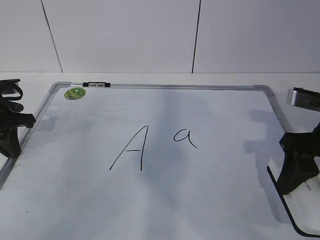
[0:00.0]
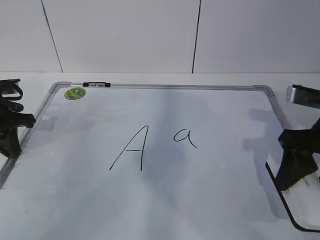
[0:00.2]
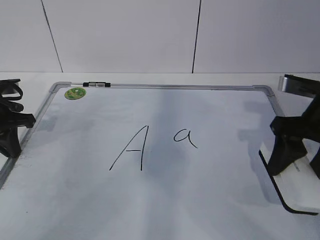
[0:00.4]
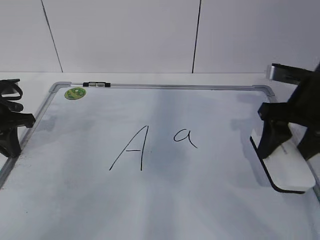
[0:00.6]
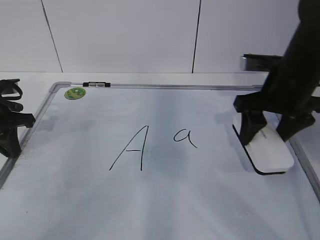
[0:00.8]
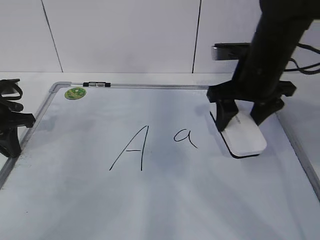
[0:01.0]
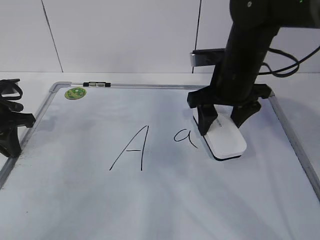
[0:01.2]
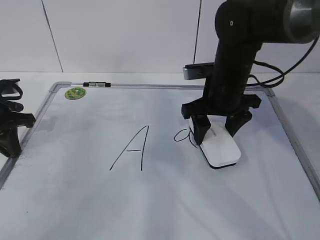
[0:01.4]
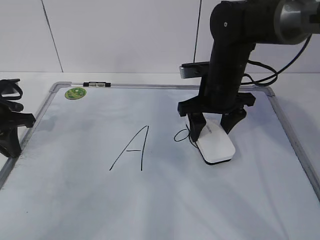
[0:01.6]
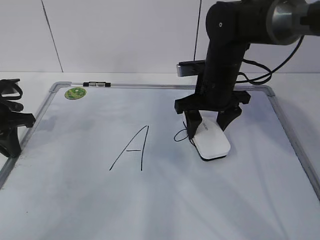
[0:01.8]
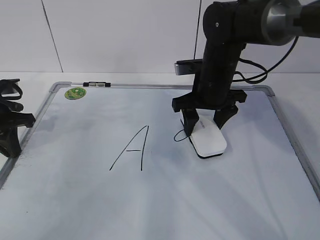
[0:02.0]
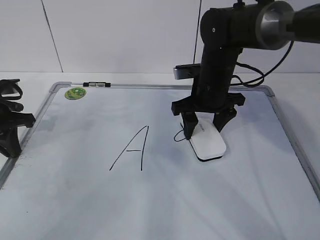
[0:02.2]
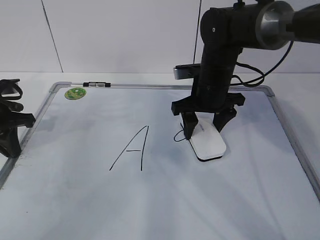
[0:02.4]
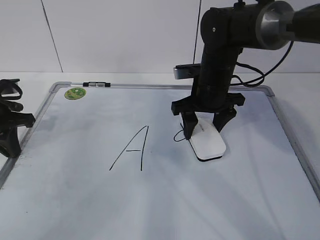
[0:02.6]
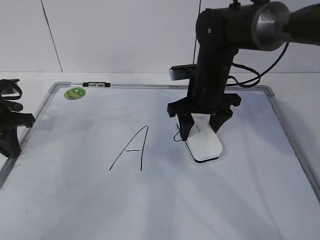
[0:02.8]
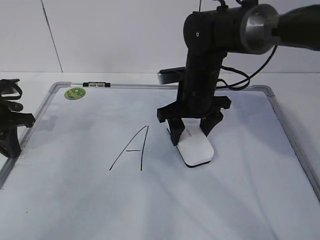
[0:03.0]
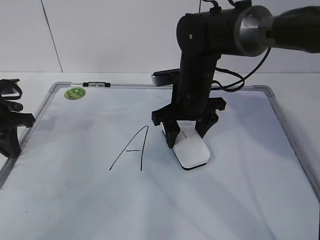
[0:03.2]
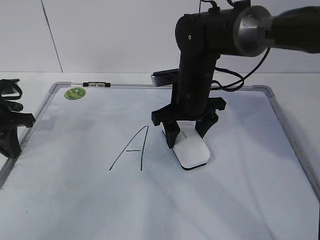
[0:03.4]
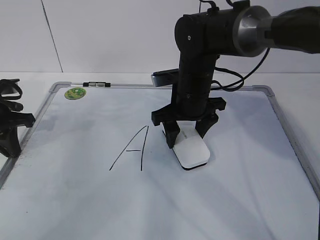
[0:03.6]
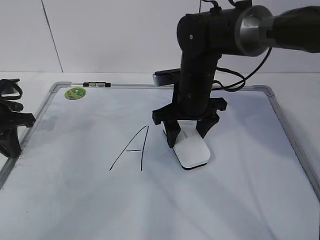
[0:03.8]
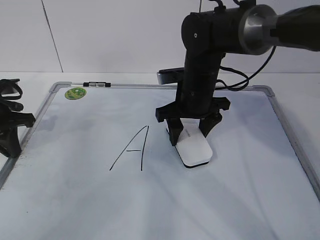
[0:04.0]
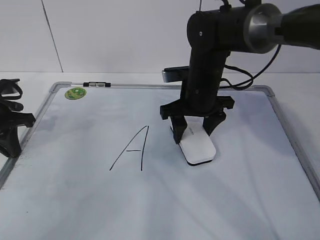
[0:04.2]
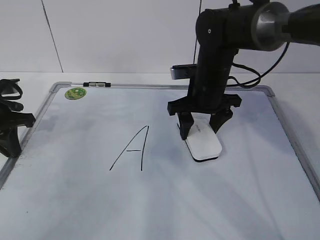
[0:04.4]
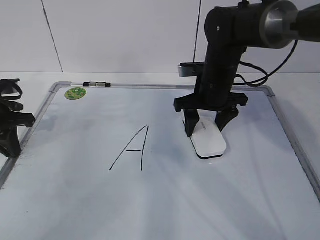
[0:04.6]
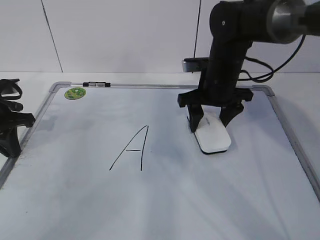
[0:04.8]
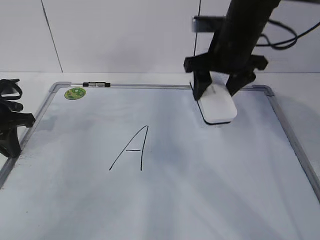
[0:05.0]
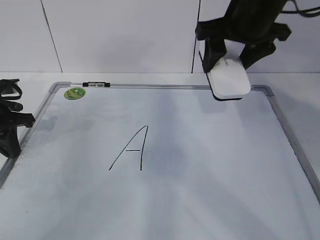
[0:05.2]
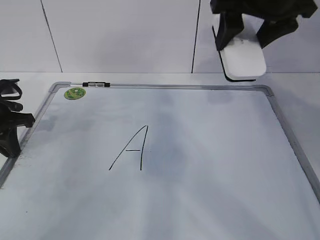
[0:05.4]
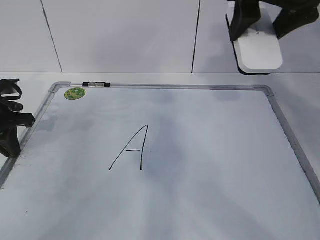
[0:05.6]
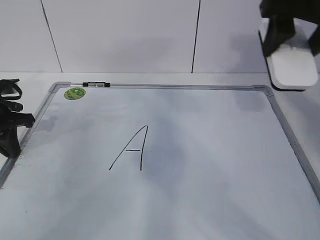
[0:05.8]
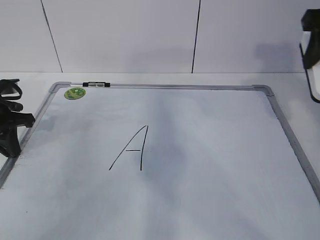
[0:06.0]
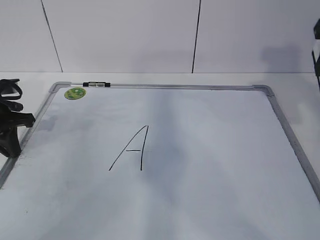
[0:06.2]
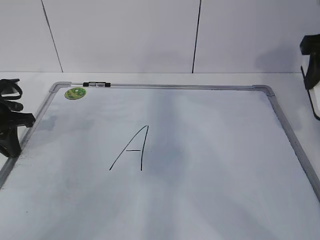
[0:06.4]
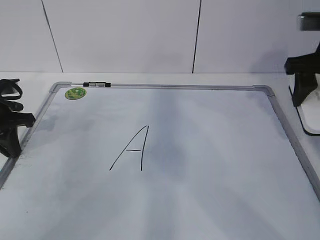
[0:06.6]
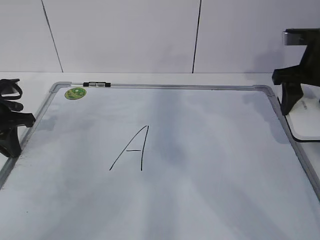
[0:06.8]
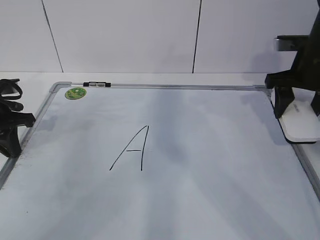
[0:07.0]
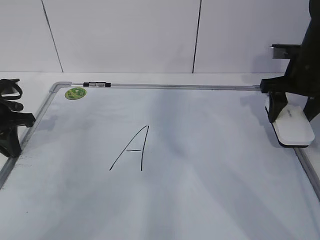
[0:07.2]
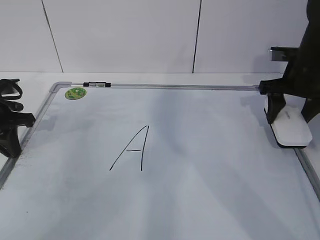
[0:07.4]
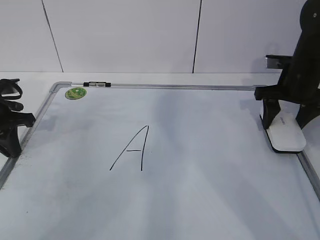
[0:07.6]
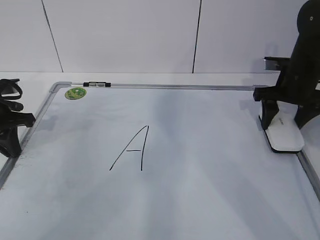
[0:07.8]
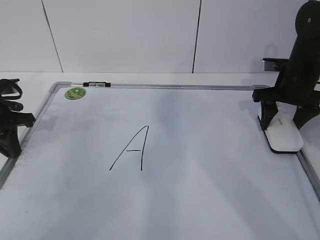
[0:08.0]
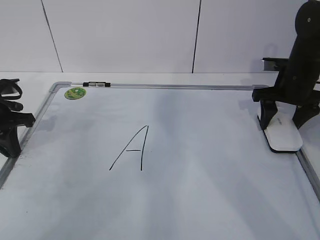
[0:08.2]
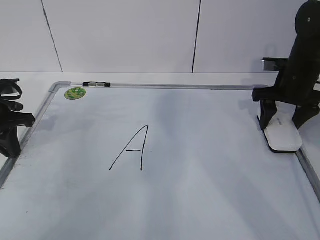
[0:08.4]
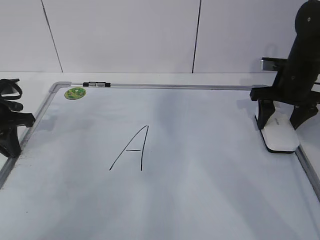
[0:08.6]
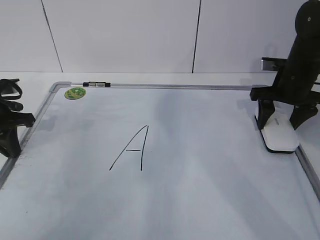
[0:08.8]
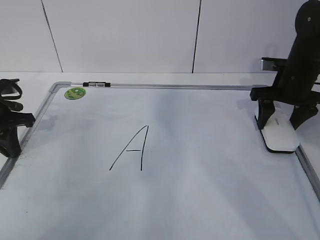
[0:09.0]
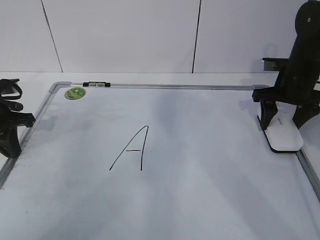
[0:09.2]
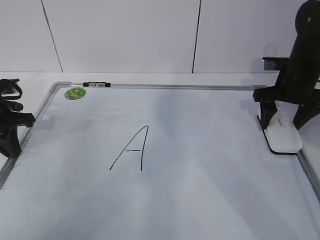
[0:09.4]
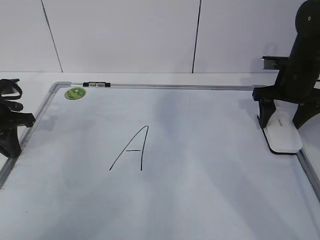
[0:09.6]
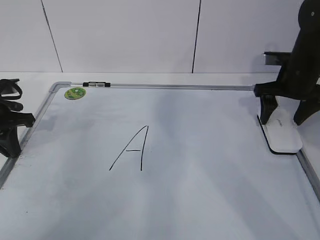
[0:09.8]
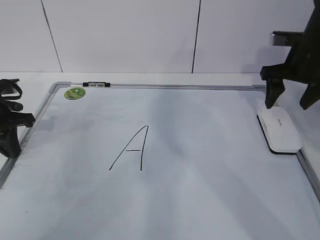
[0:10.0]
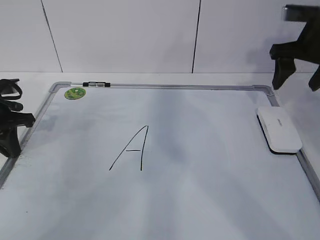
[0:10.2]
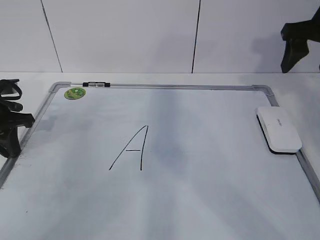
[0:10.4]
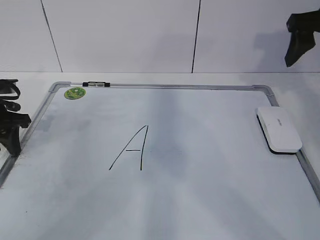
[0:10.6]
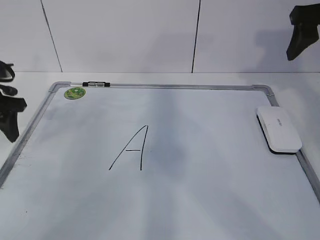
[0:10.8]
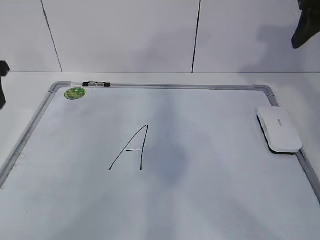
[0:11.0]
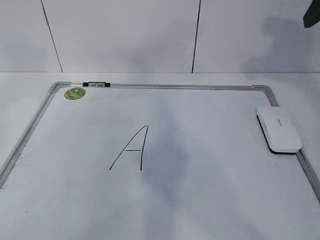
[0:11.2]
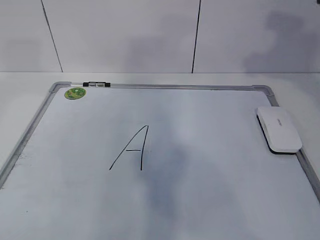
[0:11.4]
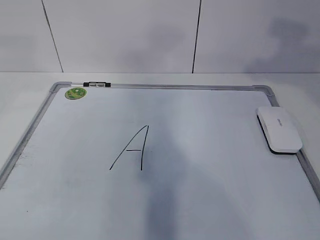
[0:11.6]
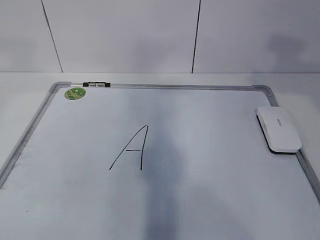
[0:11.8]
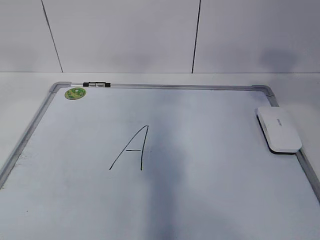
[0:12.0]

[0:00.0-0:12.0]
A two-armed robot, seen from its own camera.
Task of the whole recording: pick up the eraser on the blackboard and erase the letter "a".
Step, 0:01.4 to 0:05.2: Put down the eraser with your right hand.
0:00.0 to 0:01.6: The right gripper goes roughly 20 cm forward and to the left.
0:01.6 to 0:04.4: The grippers stay close to where they were, moving slightly.
0:04.4 to 0:06.0: The right gripper goes approximately 25 cm upward, to the right and backward.
0:06.0 to 0:07.6: The right gripper is displaced downward and forward by approximately 20 cm.
0:07.6 to 0:09.0: Neither gripper changes place.
0:09.0 to 0:10.4: The right gripper is displaced upward by roughly 15 cm, and opens its fingers.
0:10.4 to 0:12.0: The left gripper goes roughly 40 cm upward and backward, and opens; the right gripper shifts approximately 25 cm backward and upward, and closes up.

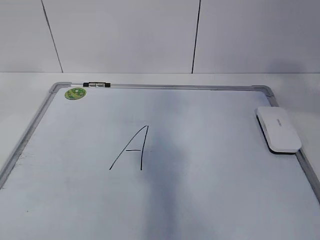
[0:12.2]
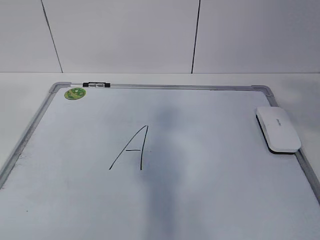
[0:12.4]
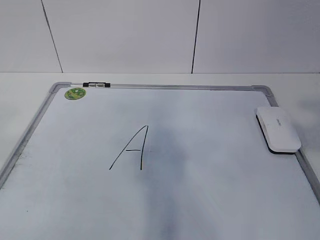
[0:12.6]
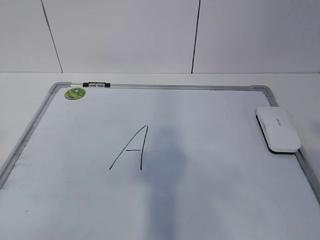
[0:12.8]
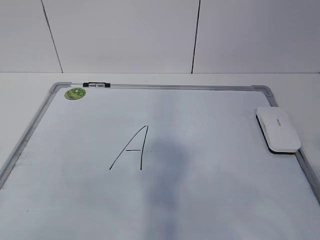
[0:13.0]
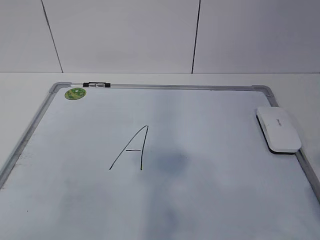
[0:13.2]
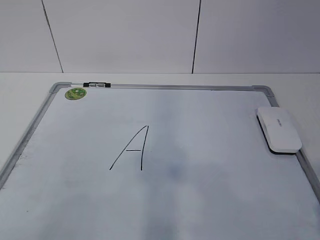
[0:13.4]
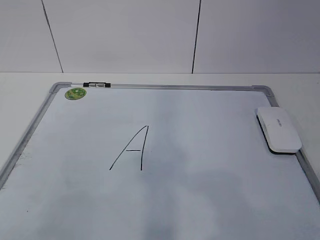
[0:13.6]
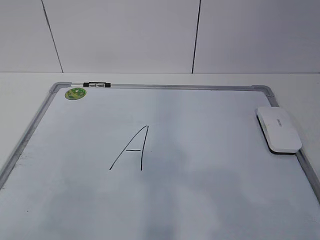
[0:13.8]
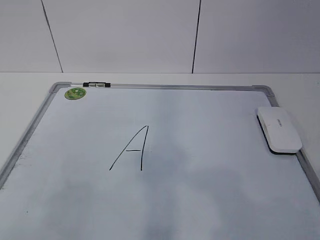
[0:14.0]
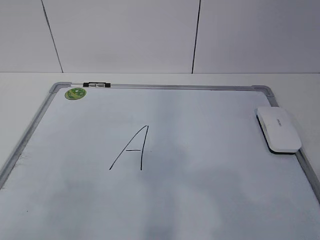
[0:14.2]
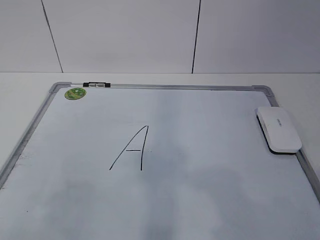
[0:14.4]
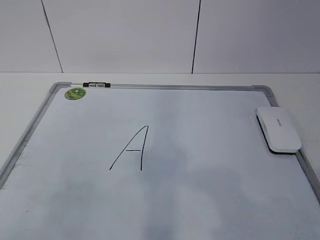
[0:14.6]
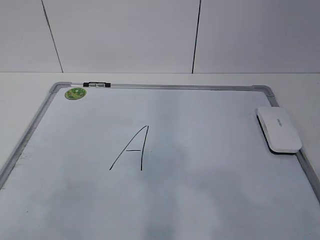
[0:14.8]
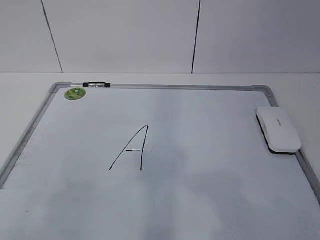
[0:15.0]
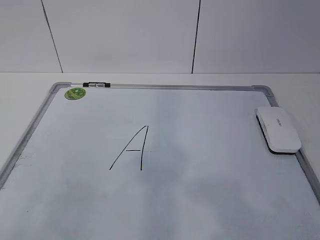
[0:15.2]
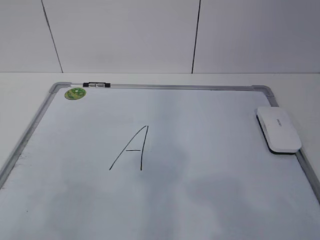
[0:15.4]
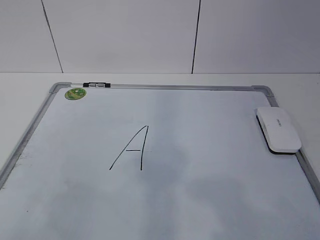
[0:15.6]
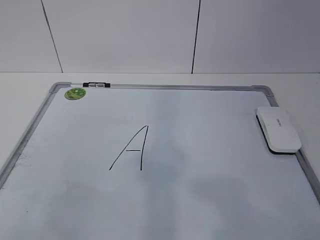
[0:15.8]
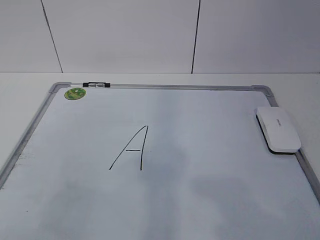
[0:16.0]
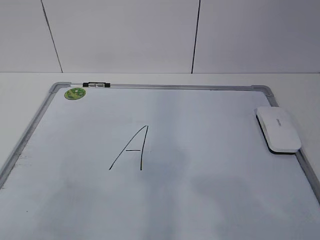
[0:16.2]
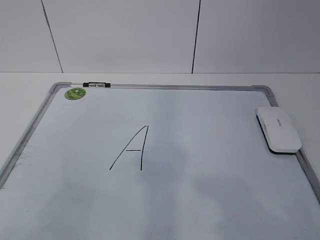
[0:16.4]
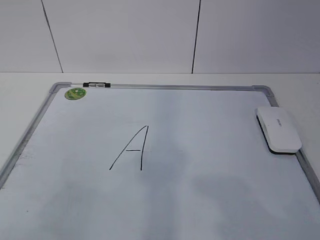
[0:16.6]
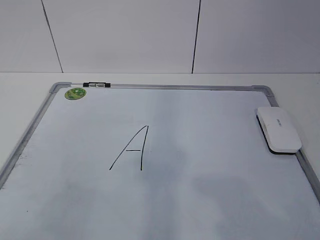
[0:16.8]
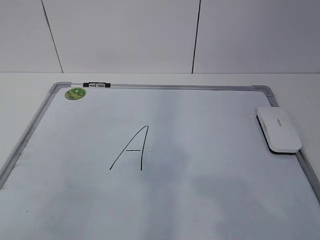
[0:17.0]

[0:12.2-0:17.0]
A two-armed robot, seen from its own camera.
Task of the whole recording: pick up the eraser on the blackboard and erase the letter "a".
0:12.2 to 0:13.8: Both grippers travel together downward and backward, approximately 20 cm.

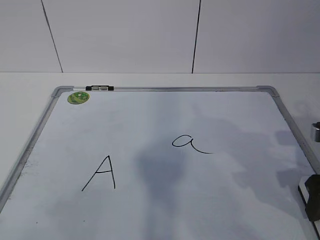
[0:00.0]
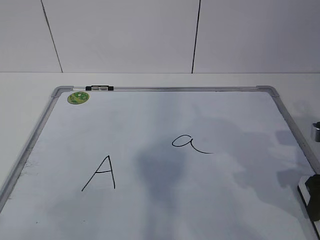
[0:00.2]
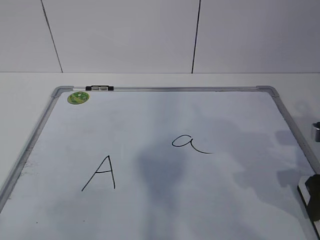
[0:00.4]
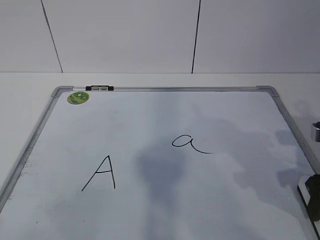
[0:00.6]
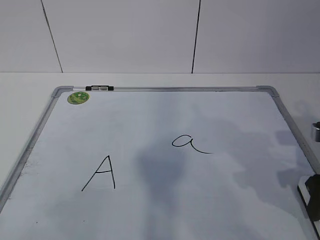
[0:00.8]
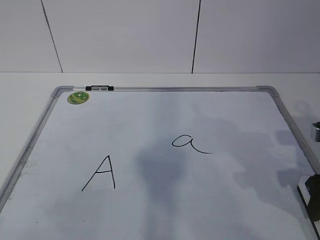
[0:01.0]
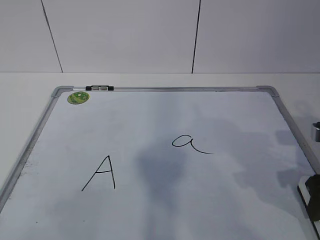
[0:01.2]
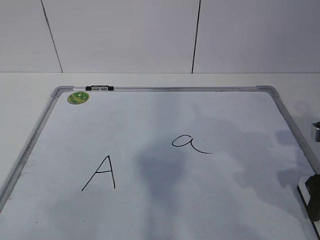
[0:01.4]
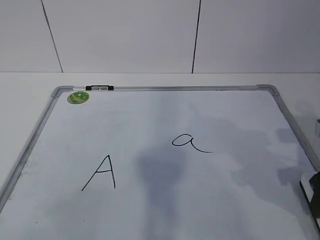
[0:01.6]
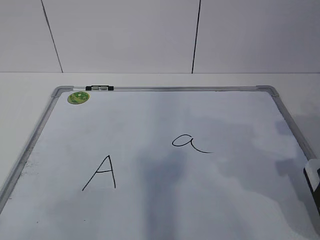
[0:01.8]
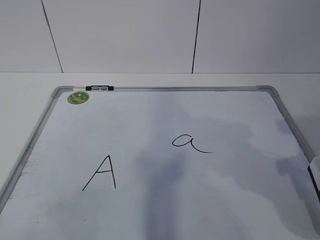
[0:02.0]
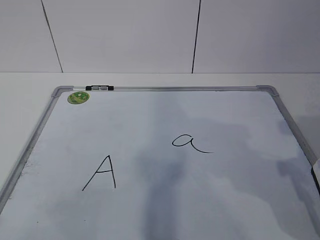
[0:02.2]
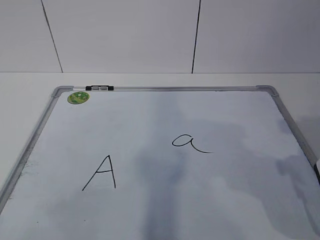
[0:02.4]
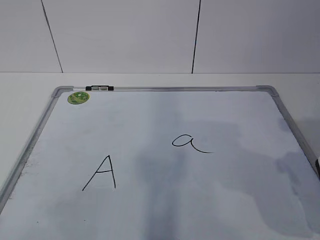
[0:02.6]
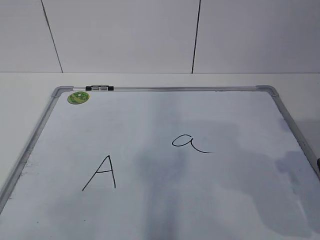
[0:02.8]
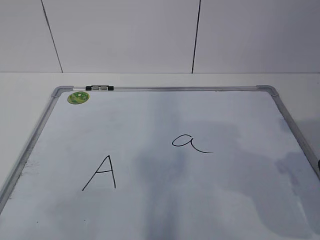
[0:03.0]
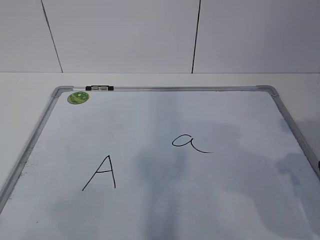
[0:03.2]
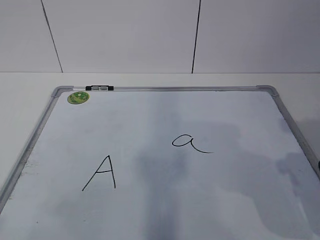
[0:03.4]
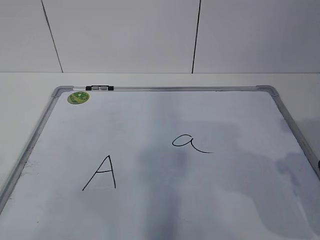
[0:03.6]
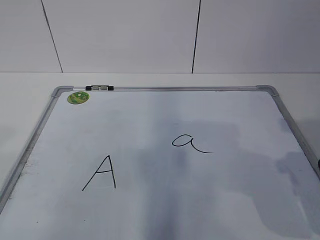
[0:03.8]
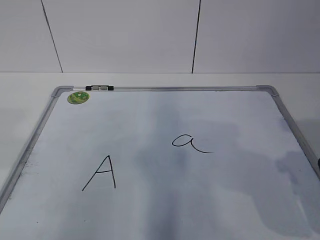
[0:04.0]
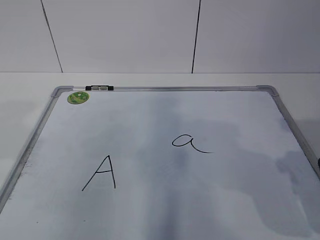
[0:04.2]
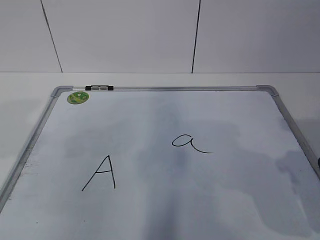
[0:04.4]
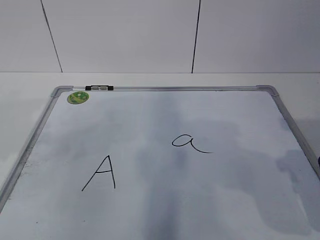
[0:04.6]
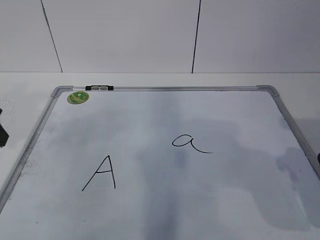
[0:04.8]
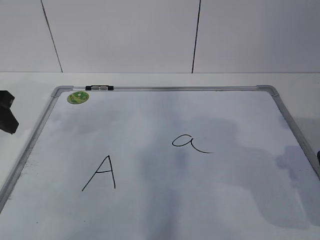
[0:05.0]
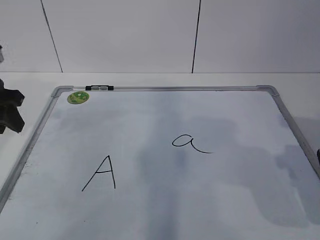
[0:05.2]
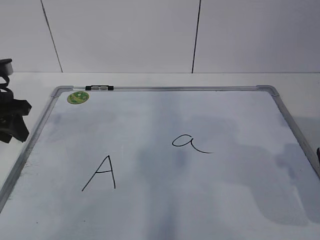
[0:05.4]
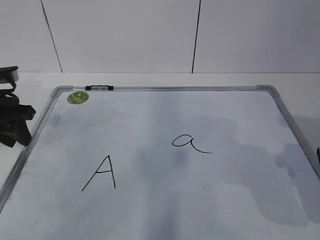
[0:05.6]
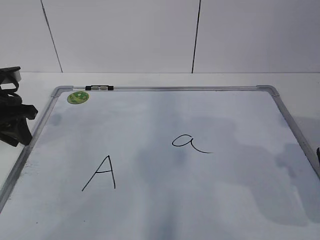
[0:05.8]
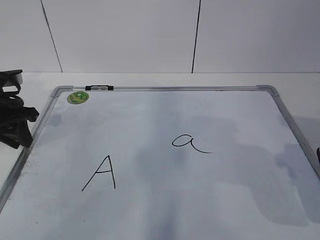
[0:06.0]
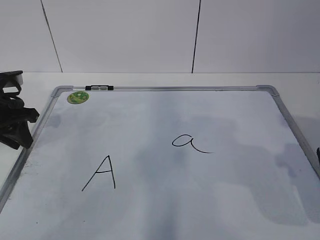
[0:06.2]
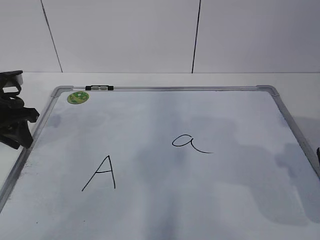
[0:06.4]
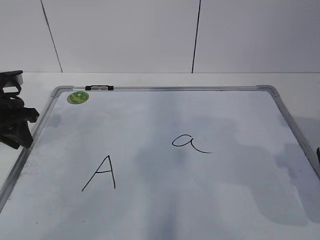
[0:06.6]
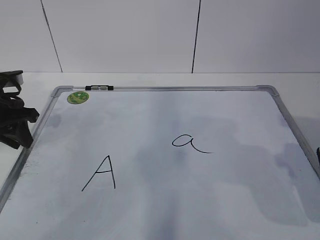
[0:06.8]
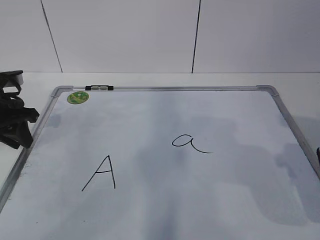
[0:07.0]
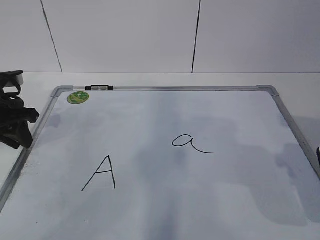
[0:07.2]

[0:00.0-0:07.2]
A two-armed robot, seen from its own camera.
Task of the whole recording: pick up the eraser on the blackboard and erase the letter "a".
Step, 0:00.0 to 0:05.8: Hold the drawing board steady with your left hand.
0:00.0 to 0:01.4: Neither gripper changes place.
0:01.4 to 0:02.8: The right gripper heads upward and backward, covering roughly 10 cm.
0:04.4 to 0:05.8: The left gripper travels forward and downward by about 20 cm, and closes.
0:05.8 to 0:07.2: Neither gripper changes place.
